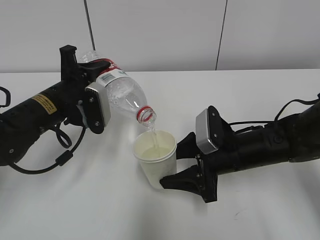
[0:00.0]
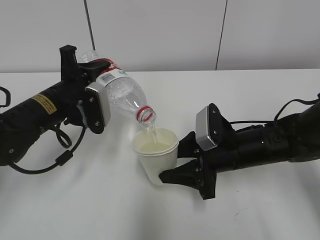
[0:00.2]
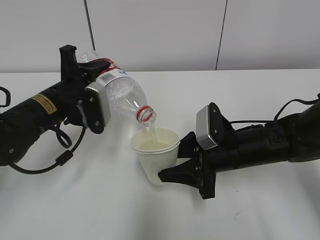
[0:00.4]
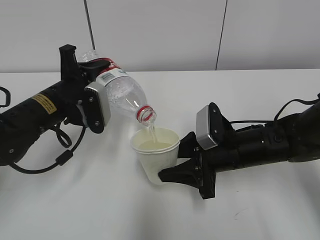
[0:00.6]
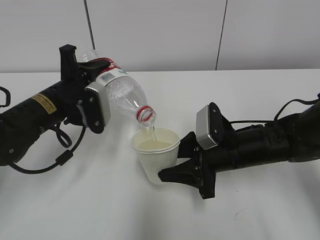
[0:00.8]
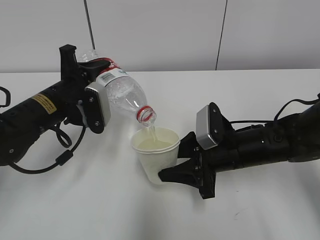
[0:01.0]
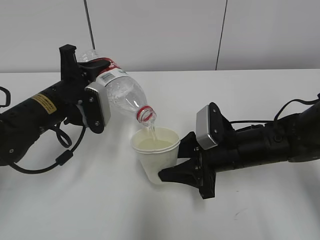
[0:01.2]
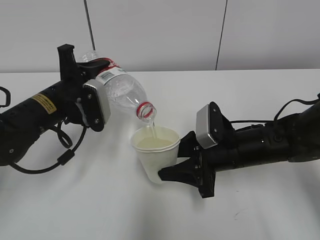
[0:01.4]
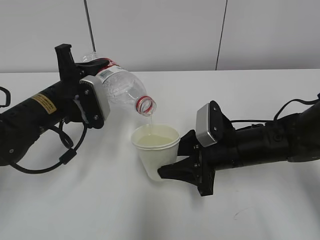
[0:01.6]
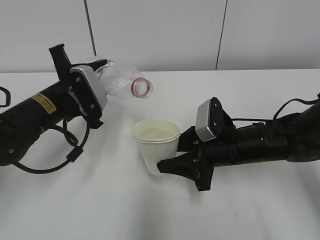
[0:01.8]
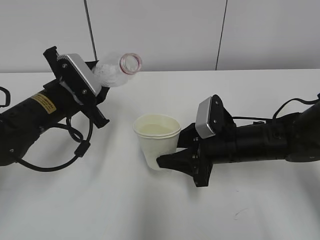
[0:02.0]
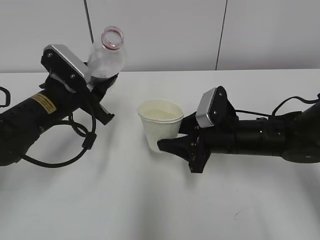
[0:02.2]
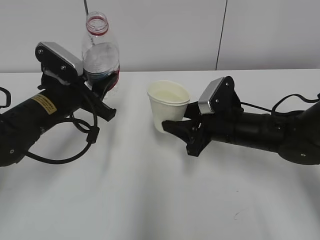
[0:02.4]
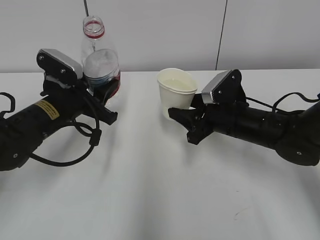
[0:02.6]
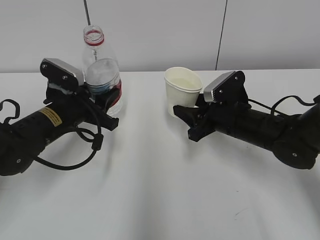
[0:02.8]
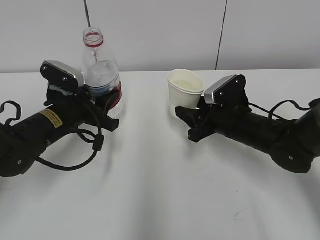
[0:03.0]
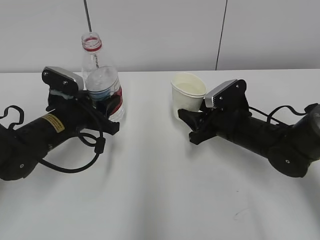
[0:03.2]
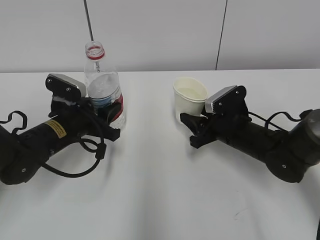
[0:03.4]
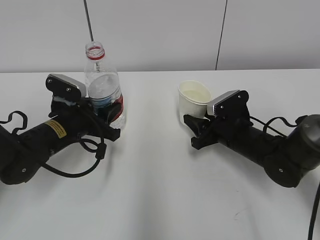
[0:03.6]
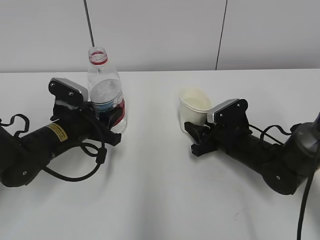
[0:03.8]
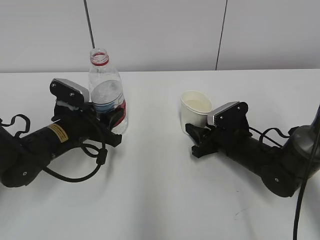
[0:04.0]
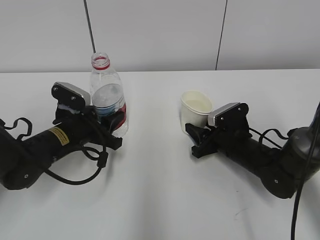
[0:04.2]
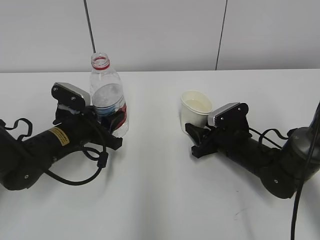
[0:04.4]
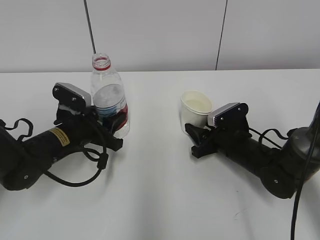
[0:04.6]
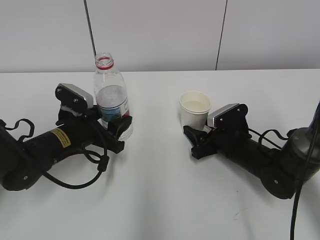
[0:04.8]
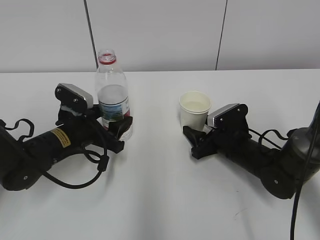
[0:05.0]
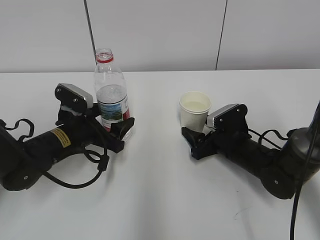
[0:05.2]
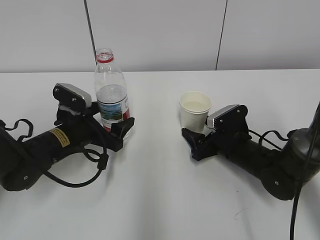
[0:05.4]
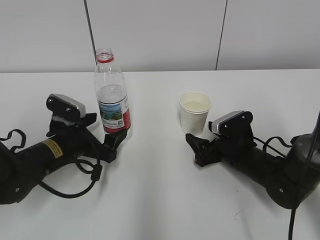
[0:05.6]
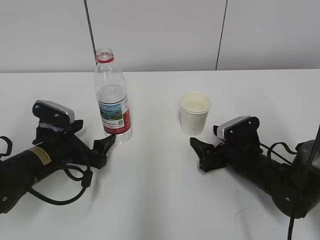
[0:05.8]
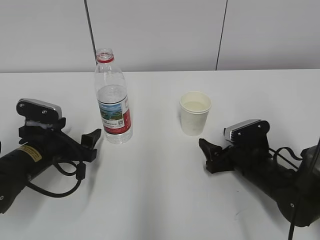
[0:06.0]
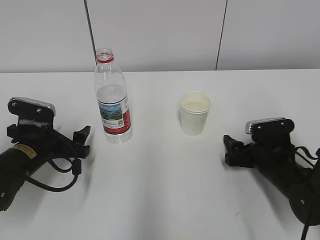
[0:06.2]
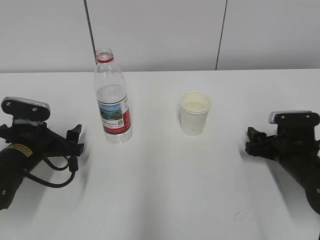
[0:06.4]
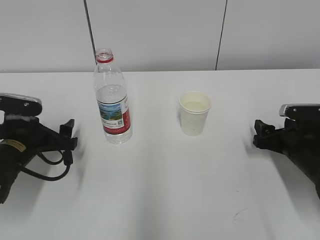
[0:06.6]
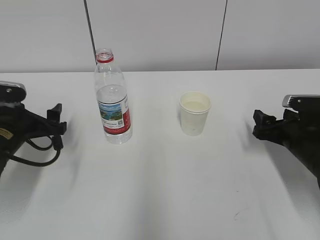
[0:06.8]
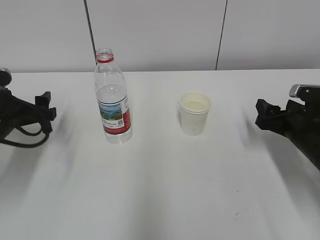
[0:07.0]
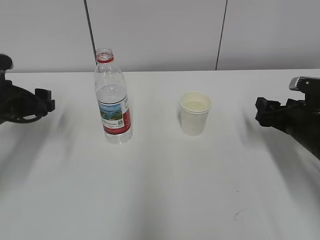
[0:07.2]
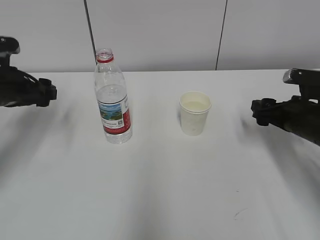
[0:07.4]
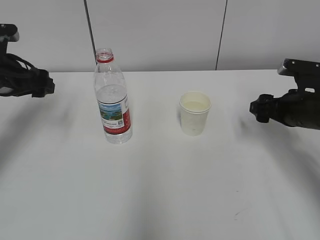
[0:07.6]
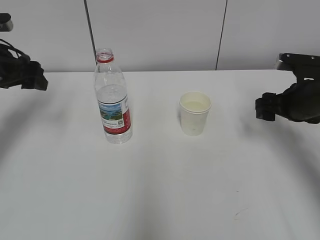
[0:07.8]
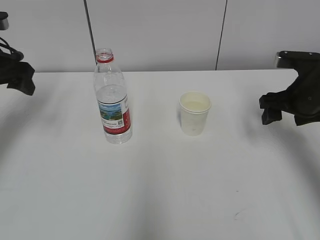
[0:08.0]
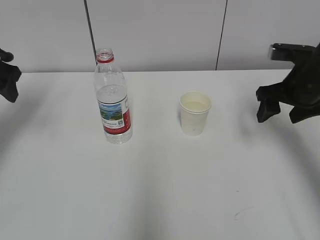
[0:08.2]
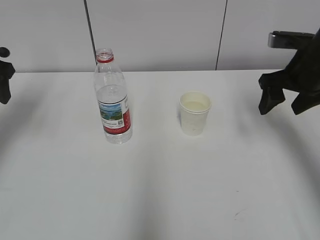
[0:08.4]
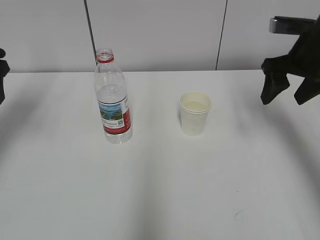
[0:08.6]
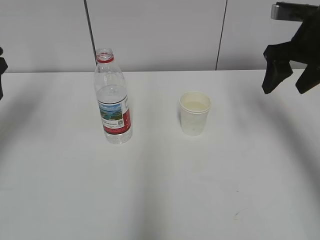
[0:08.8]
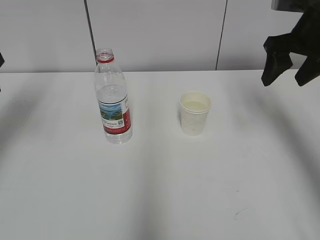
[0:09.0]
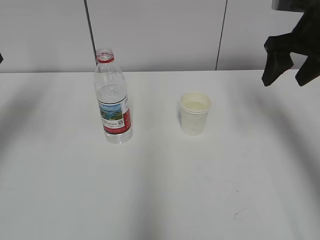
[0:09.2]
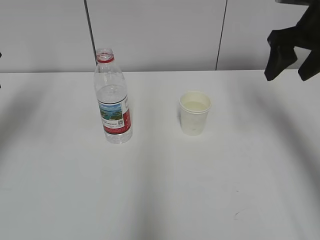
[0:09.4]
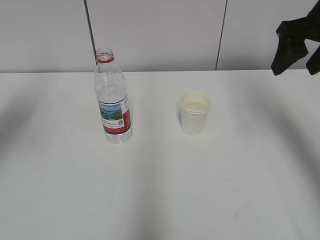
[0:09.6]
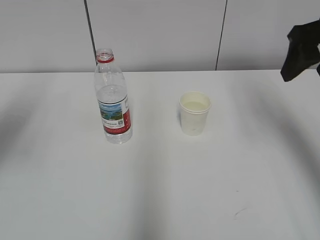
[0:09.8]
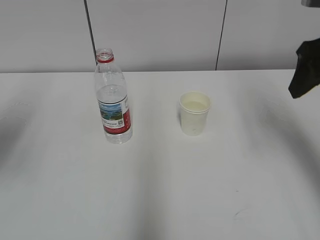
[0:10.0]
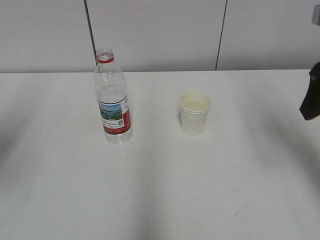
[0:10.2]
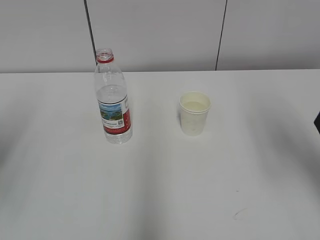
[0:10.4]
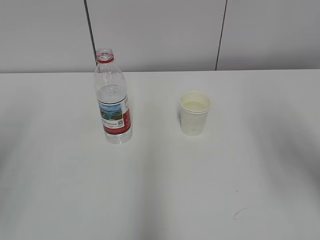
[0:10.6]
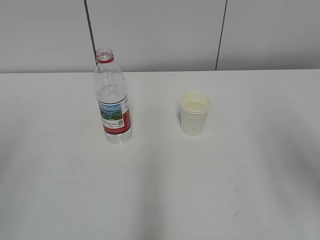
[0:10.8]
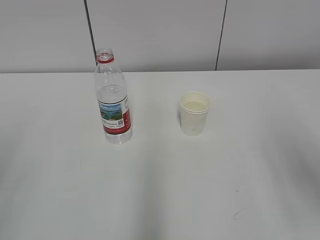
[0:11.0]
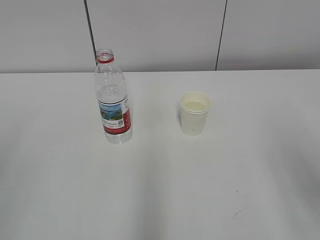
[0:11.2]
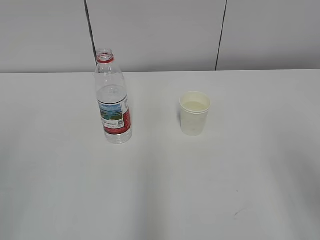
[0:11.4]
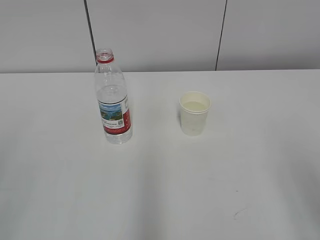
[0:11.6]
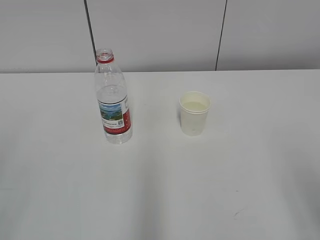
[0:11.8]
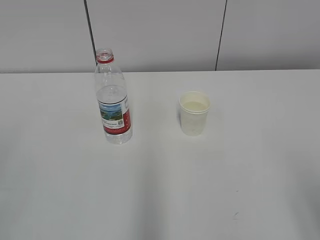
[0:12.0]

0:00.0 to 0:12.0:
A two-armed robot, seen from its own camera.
0:00.0 to 0:01.6: The right gripper closes up.
0:01.6 to 0:03.0: The right gripper moves about 5 cm.
0:03.0 to 0:04.4: The right gripper heads downward, covering roughly 5 cm.
0:04.4 to 0:06.0: The right gripper ends up roughly 5 cm from where it was, and opens. Meanwhile the left gripper moves roughly 5 cm, and opens its fingers.
0:06.0 to 0:07.6: The right gripper heads upward and to the right, covering roughly 15 cm. Meanwhile the left gripper travels upward, to the left and forward by approximately 15 cm.
0:07.6 to 0:09.0: The left gripper is displaced upward by roughly 10 cm. The right gripper shifts approximately 15 cm upward.
0:09.0 to 0:10.4: Both grippers move backward, approximately 15 cm.
0:10.4 to 0:12.0: The right gripper travels backward and downward by roughly 20 cm.

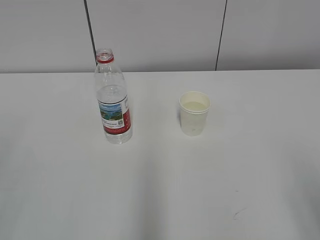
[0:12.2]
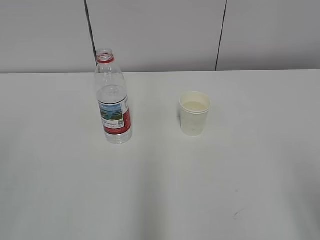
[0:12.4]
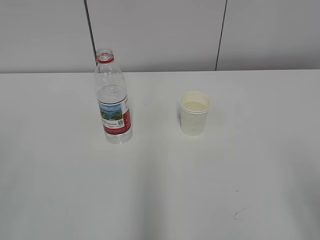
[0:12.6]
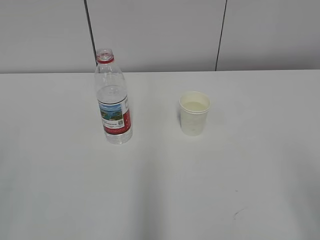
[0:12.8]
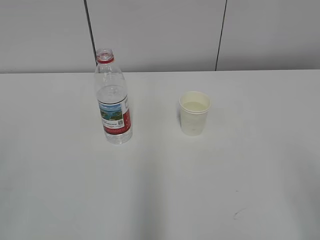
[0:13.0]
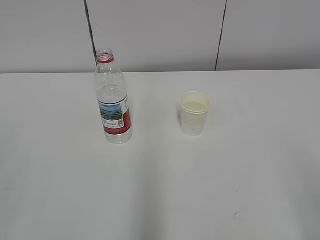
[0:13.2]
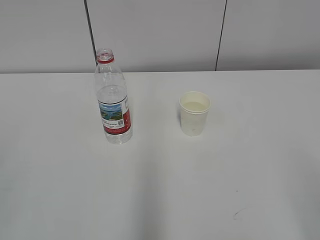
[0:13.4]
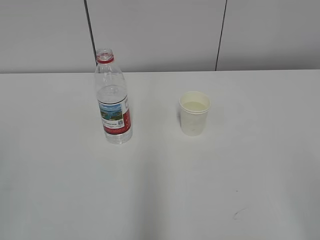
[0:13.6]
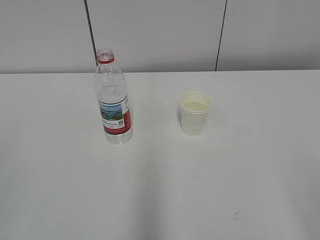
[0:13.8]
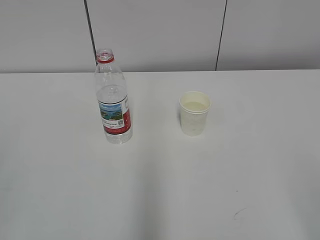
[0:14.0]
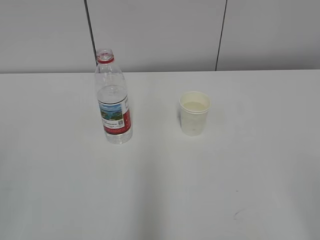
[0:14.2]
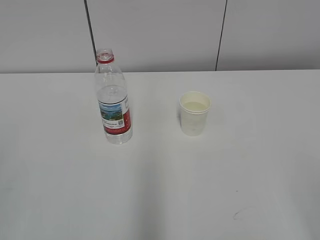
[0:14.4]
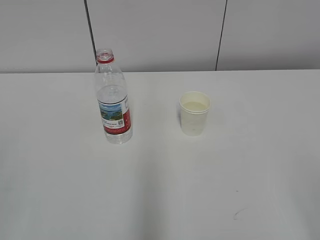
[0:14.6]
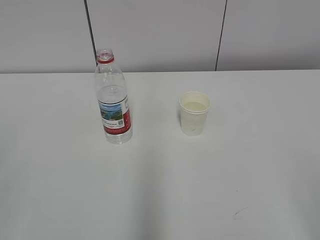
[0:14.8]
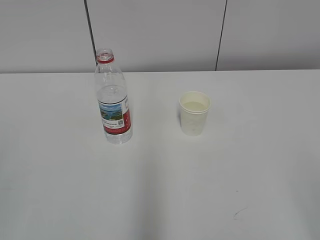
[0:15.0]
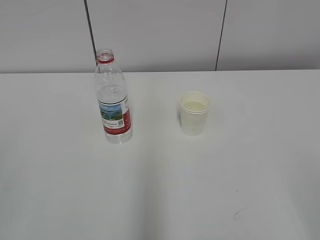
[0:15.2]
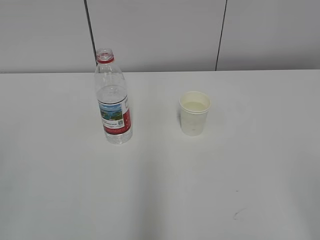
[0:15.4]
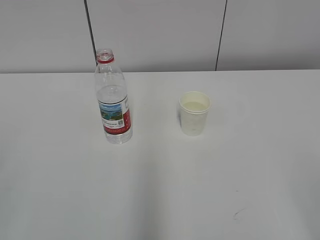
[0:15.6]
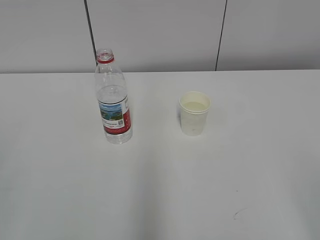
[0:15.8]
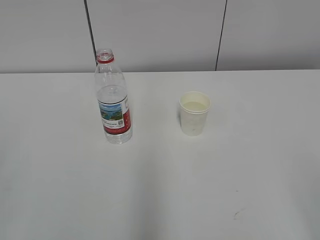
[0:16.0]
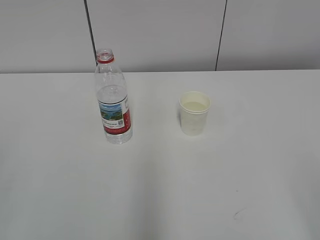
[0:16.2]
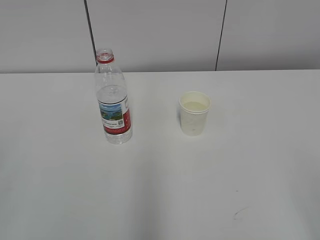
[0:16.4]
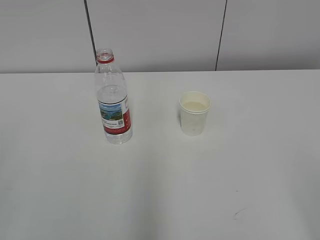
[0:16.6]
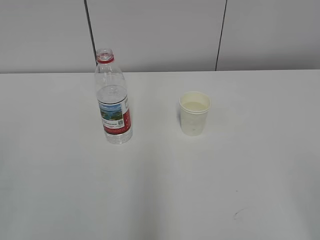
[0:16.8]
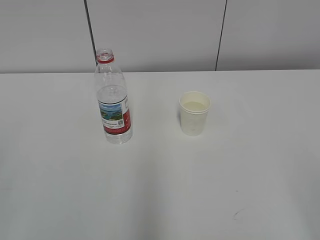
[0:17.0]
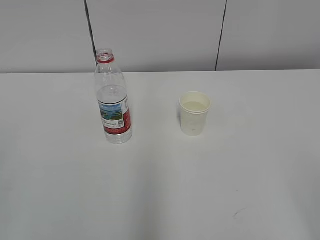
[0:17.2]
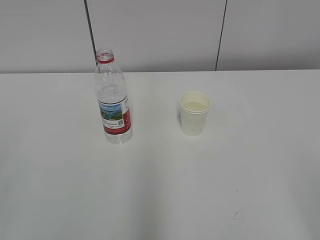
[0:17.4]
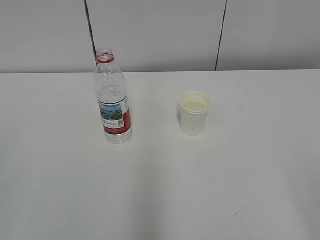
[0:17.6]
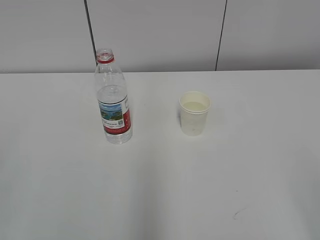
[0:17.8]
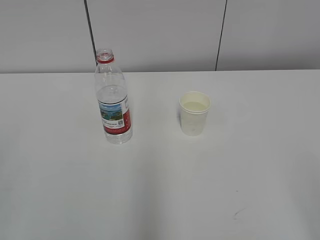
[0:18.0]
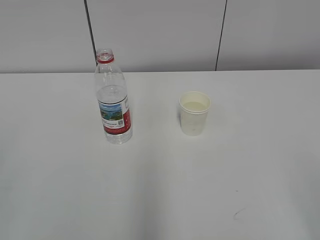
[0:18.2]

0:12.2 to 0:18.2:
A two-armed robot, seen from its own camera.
0:13.8 to 0:18.2: Neither gripper changes place.

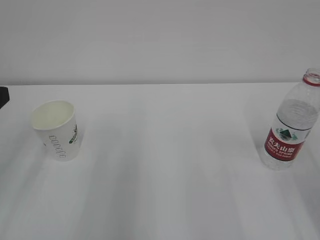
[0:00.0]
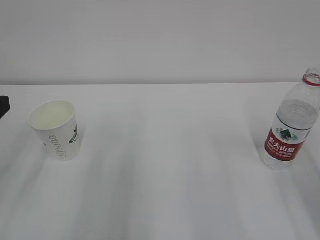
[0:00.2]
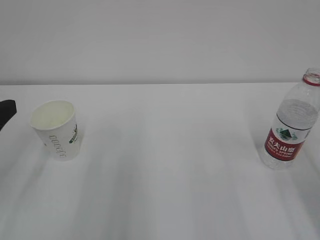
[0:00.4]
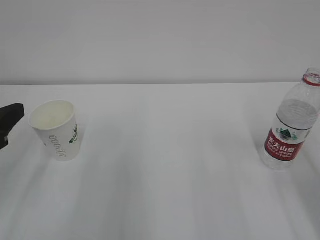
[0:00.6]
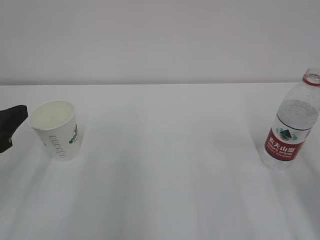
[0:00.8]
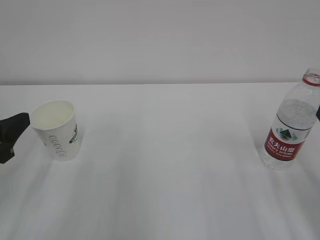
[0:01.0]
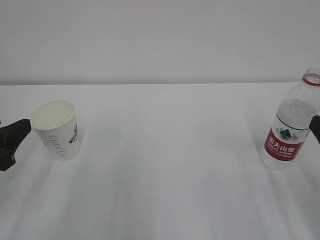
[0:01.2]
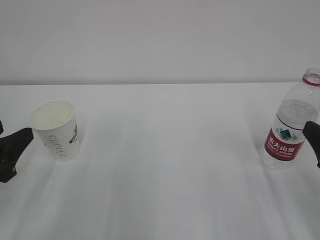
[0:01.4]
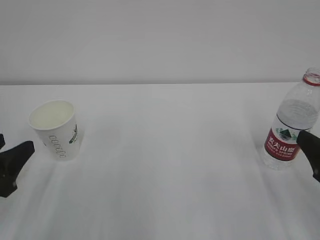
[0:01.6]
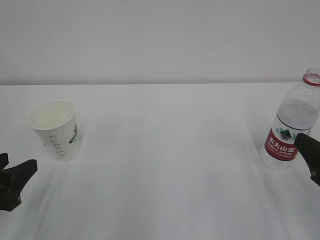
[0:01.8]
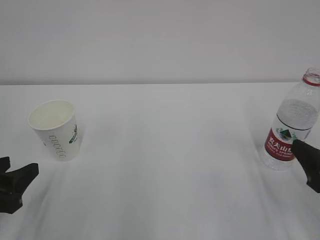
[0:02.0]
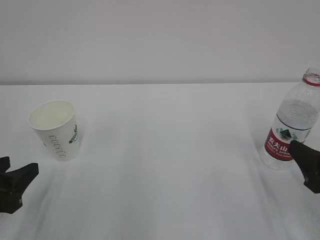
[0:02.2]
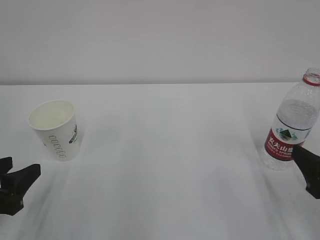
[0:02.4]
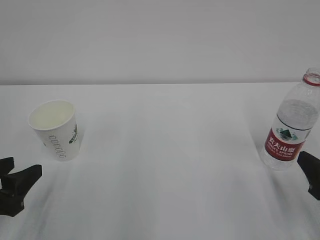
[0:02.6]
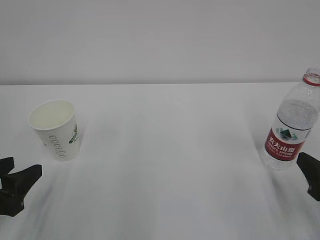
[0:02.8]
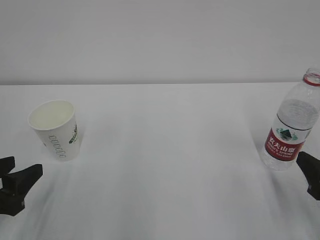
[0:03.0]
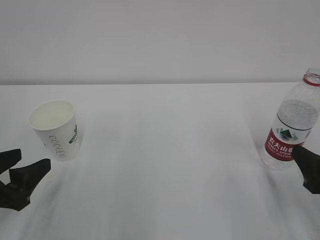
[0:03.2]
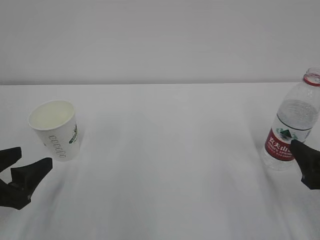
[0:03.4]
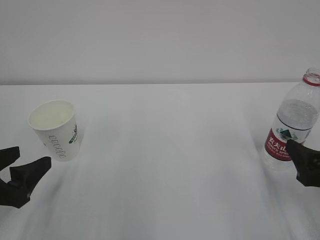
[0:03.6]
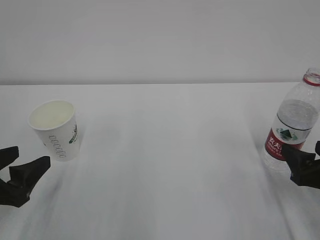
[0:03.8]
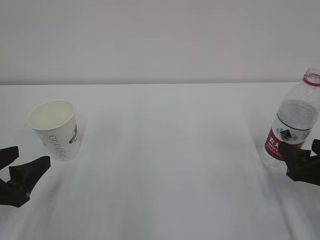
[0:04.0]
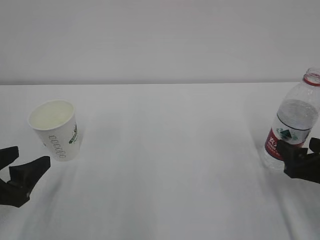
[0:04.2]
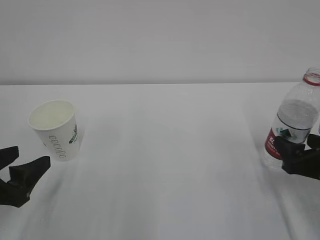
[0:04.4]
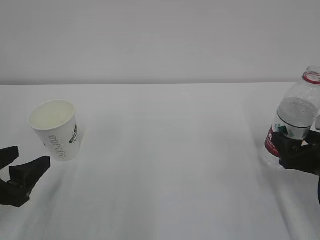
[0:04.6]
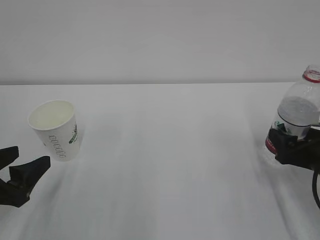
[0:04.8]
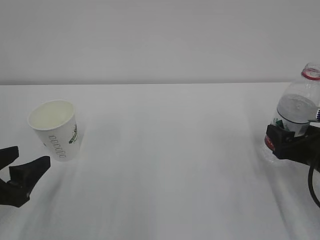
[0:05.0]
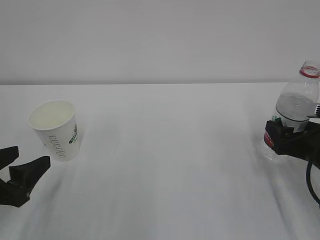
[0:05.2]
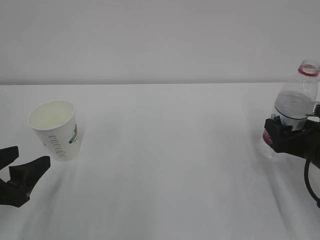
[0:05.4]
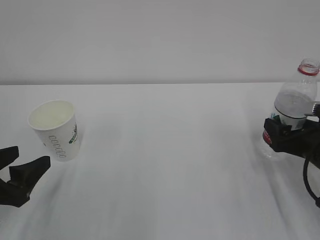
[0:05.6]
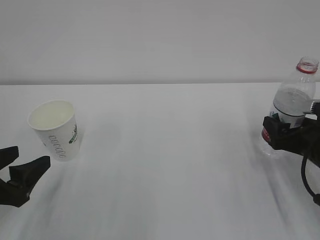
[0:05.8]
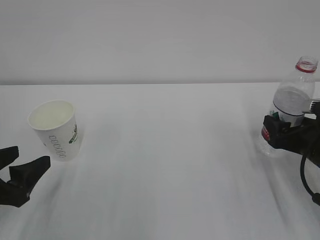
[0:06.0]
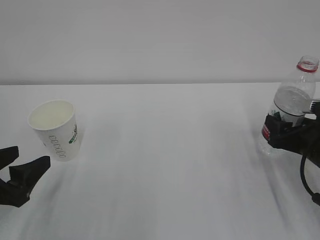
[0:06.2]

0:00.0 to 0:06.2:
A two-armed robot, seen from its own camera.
0:00.0 to 0:01.6: Both grippers move downward, approximately 10 cm.
0:01.6 to 0:03.2: The grippers make only small movements.
0:03.2 to 0:04.6: The right gripper is displaced forward by some 5 cm.
0:04.6 to 0:06.2: The right gripper closes its fingers.
